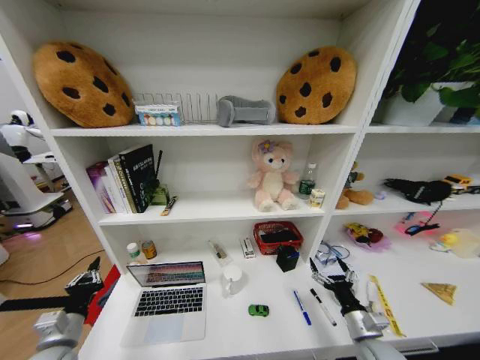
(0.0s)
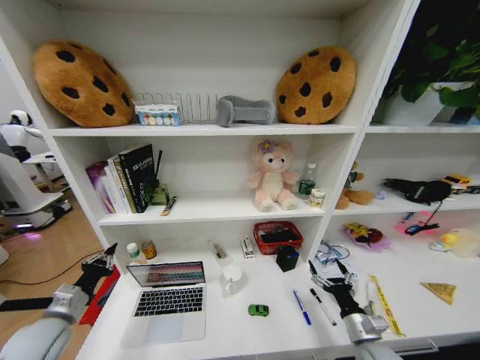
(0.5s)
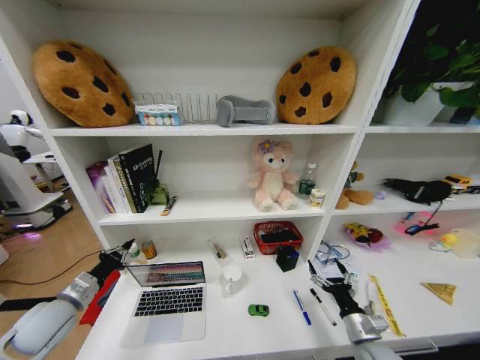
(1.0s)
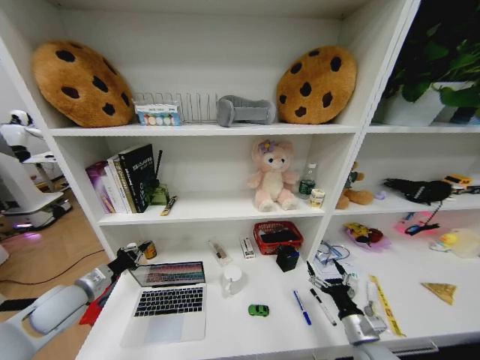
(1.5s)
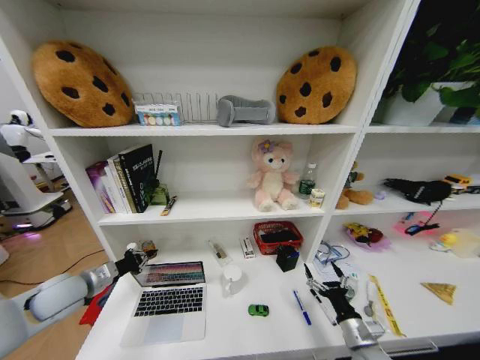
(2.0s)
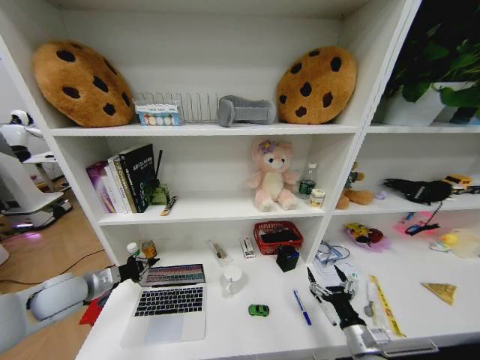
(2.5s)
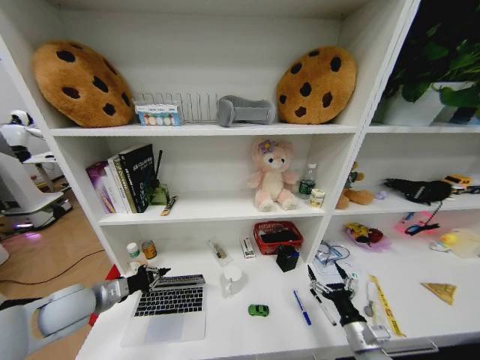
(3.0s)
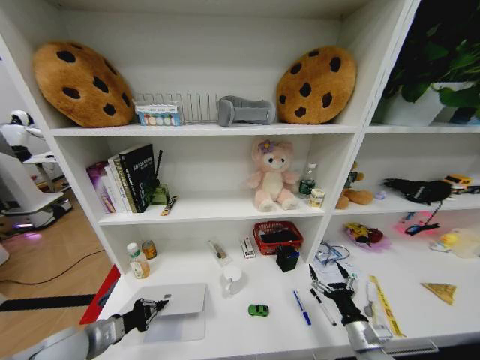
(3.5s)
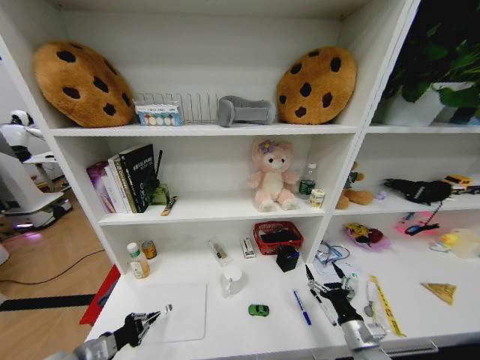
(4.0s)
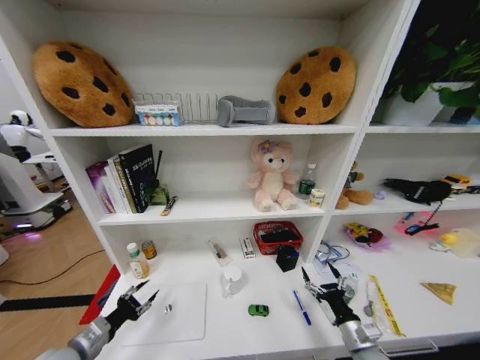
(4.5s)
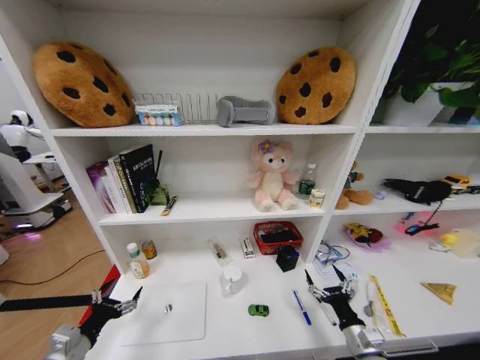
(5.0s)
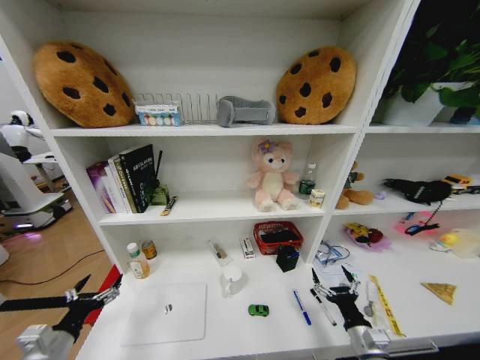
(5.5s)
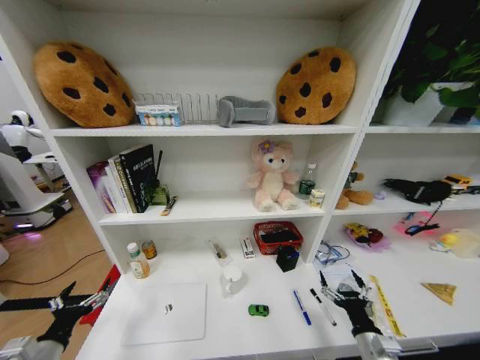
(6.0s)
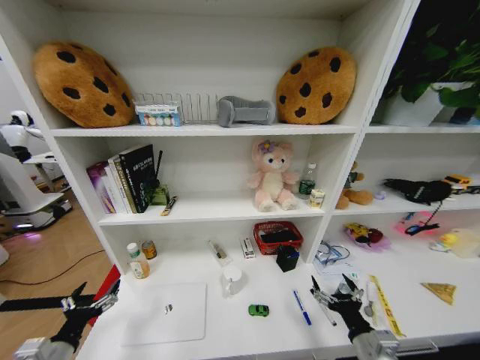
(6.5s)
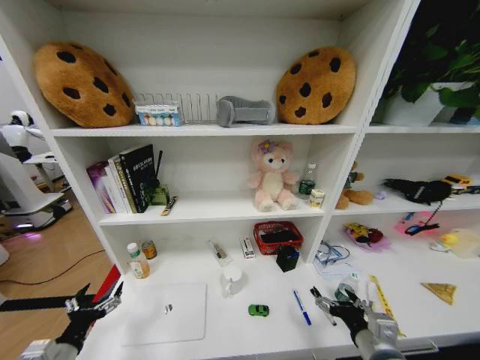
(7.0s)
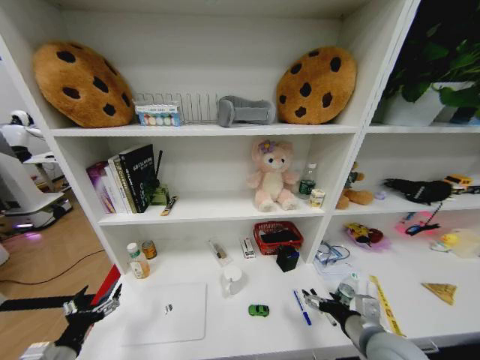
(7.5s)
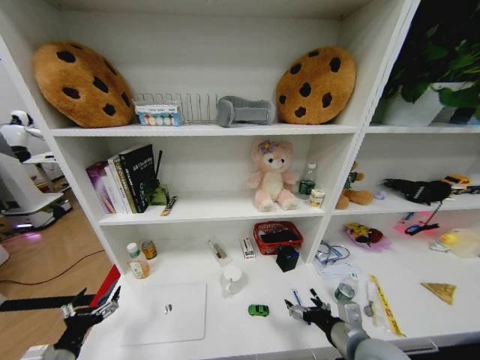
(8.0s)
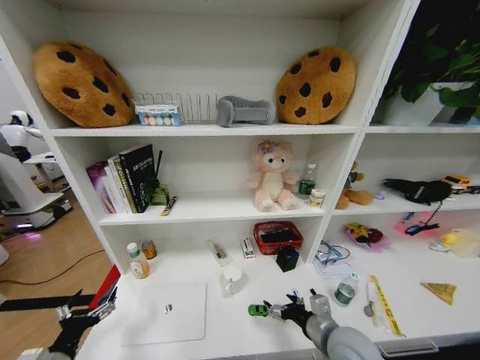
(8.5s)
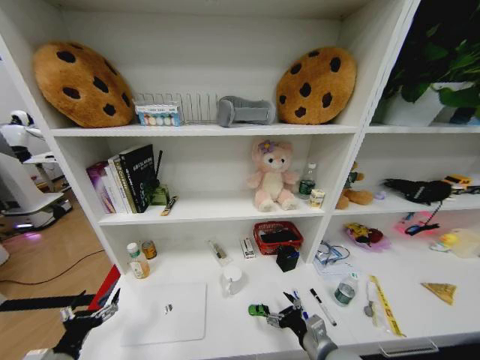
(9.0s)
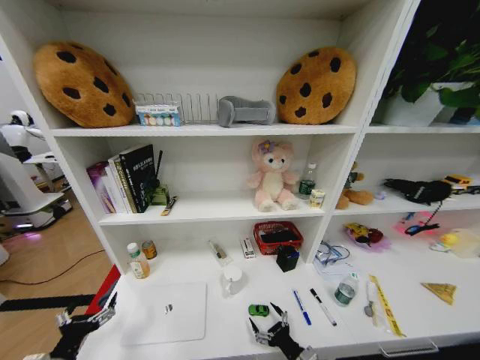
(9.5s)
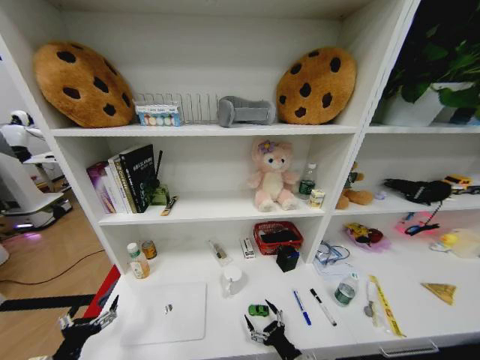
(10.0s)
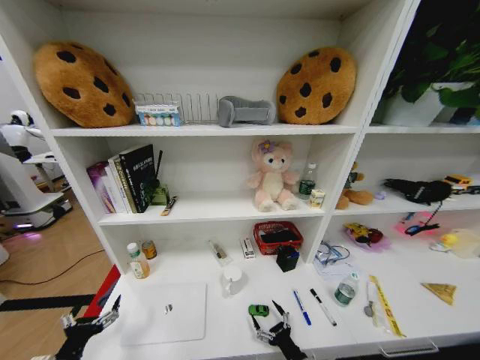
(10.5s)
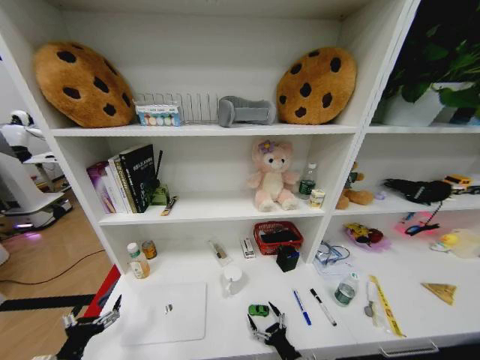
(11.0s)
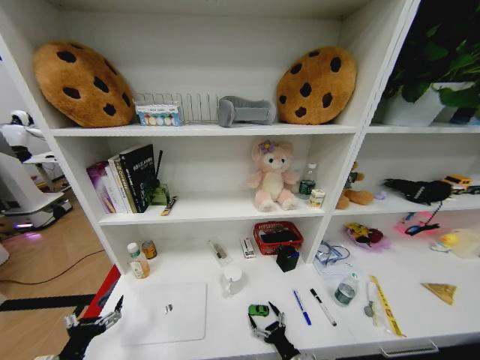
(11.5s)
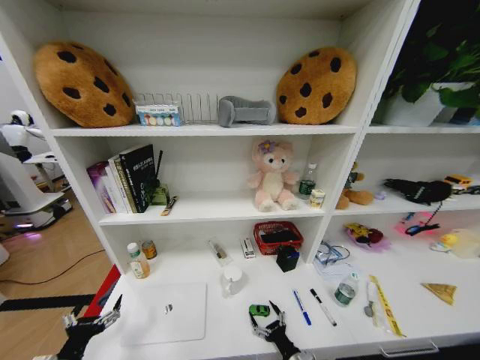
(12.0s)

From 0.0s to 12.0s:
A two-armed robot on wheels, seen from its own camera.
Task of the whole recording: Organize the objects on the table.
From 0.0s to 2.0s: The left gripper heads forward and upward, covering approximately 15 cm.
From 2.0s to 4.0s: The left gripper goes about 15 cm backward and downward.
From 4.0s to 6.0s: The left gripper shifts by about 5 cm, and opens up.
From 6.0s to 8.0s: The right gripper is displaced upward and to the left by approximately 15 cm.
From 8.0s to 10.0s: The right gripper moves downward, about 20 cm.
From 10.0s to 12.0s: The right gripper moves some 5 cm.

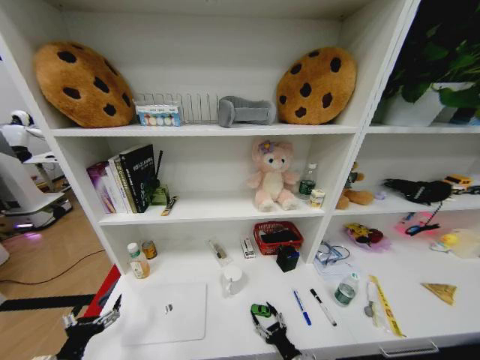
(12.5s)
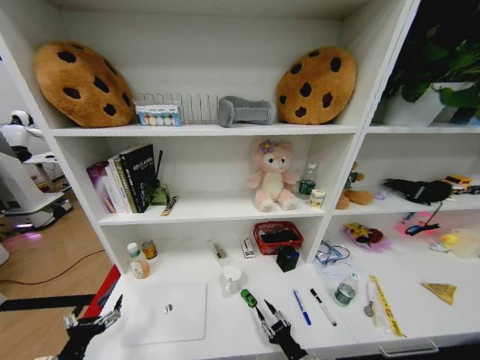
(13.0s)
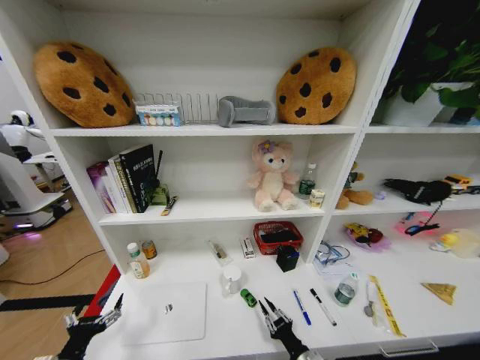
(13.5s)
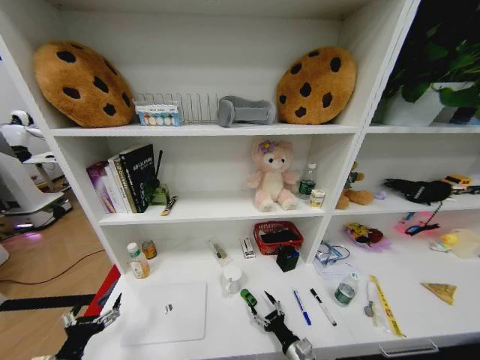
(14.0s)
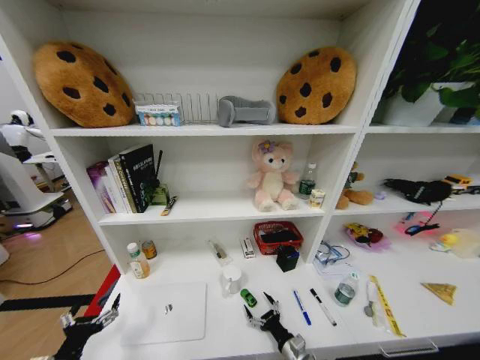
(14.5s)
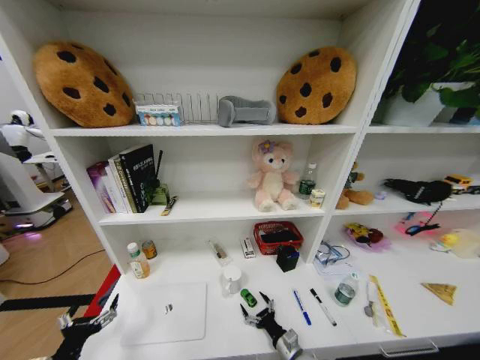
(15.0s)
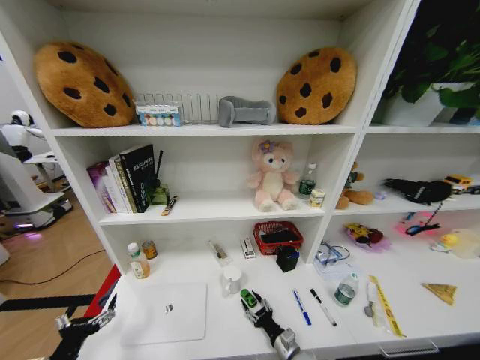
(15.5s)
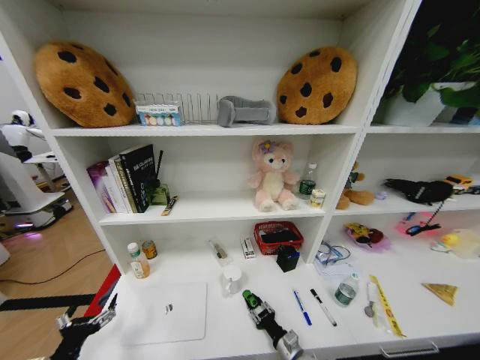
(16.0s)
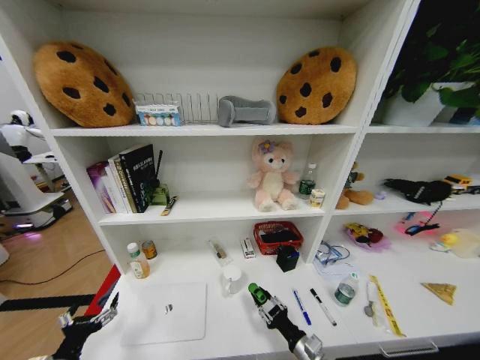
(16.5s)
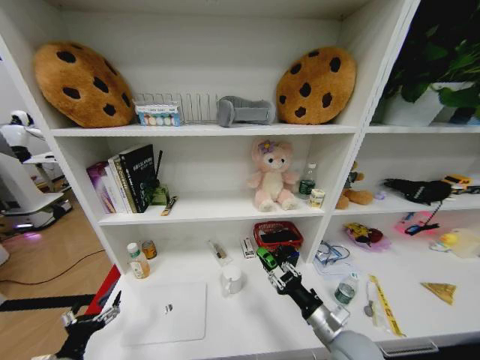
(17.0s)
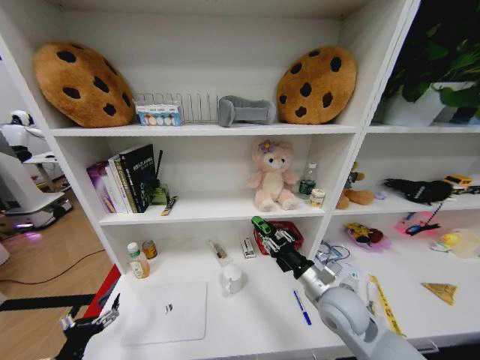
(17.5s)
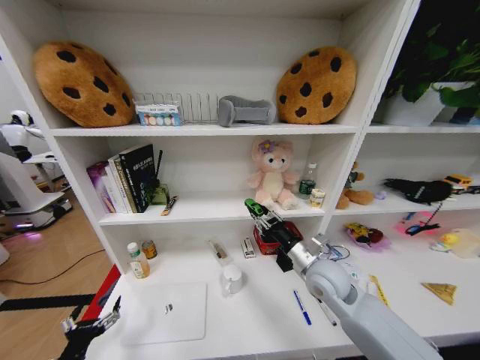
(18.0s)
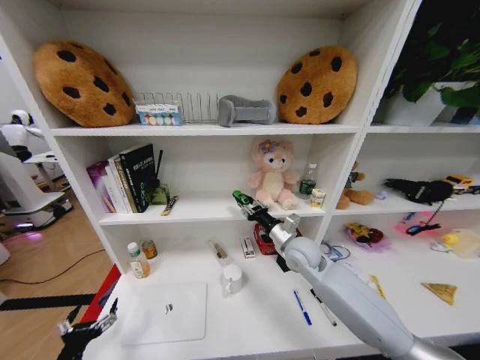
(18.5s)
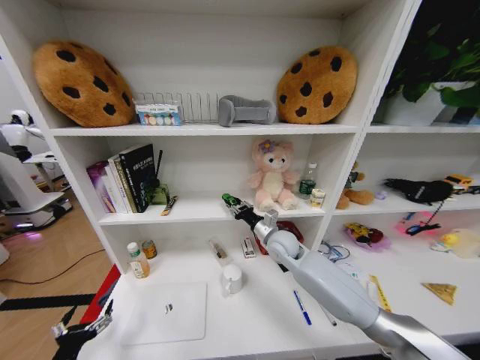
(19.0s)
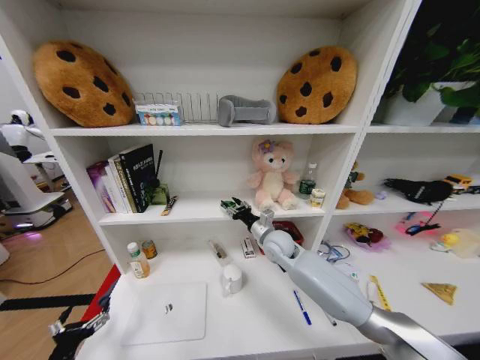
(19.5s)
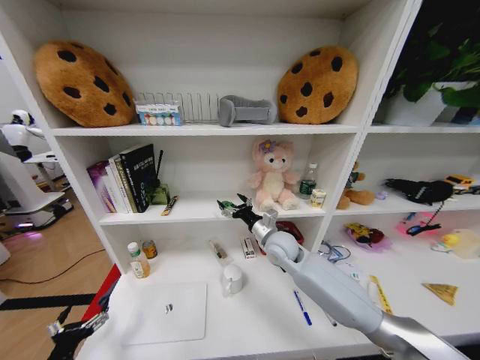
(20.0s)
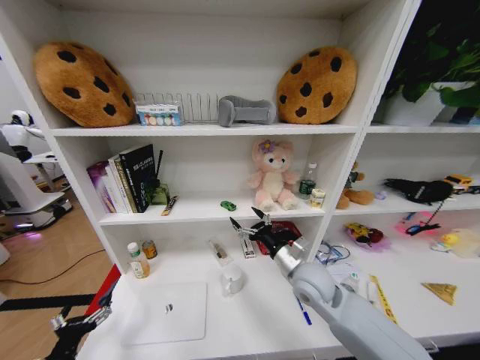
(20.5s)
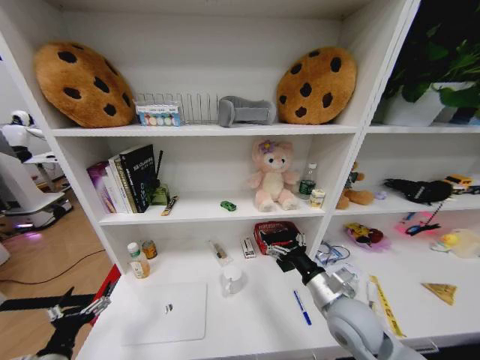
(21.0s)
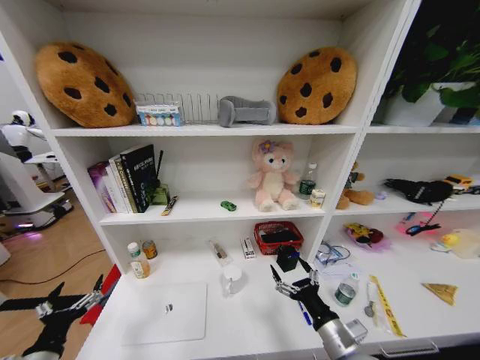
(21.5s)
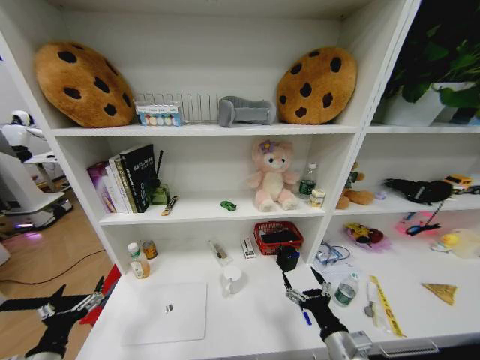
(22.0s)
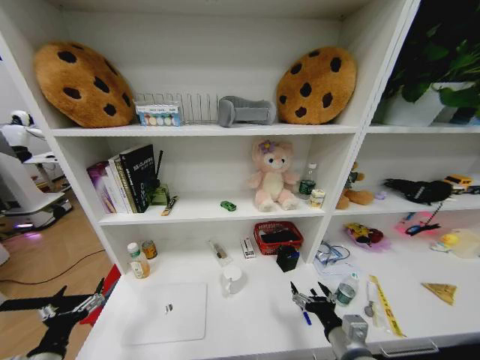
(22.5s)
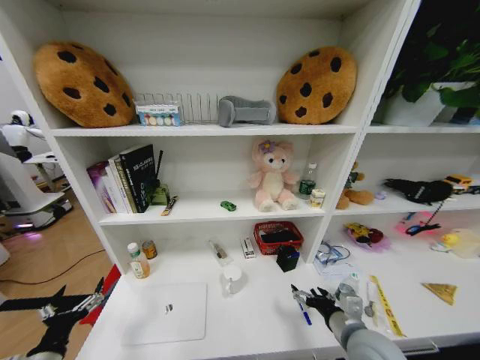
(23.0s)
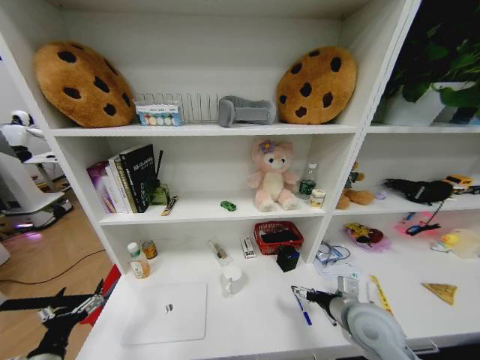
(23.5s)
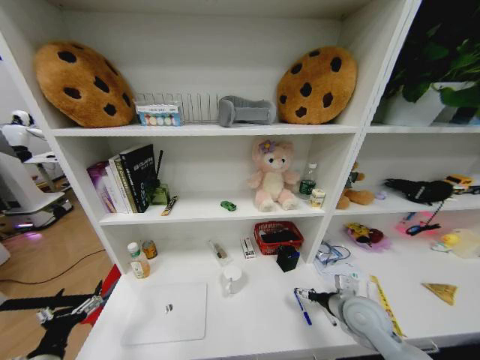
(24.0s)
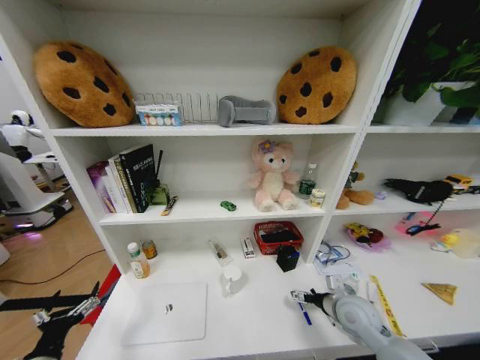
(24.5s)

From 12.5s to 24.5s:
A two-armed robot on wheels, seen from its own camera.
Task of the whole recording: Organize the objects on the table.
From 12.5s to 14.5s: The right gripper closes, then reopens.
From 14.5s to 16.5s: The right gripper goes some 10 cm upward, and closes.
From 16.5s to 18.5s: The right gripper goes roughly 30 cm forward and upward.
From 18.5s to 20.5s: The right gripper shifts roughly 5 cm backward, and opens its fingers.
From 20.5s to 22.5s: The right gripper moves backward, to the right and downward, approximately 20 cm.
From 22.5s to 24.5s: The right gripper is displaced forward and to the right by roughly 15 cm.

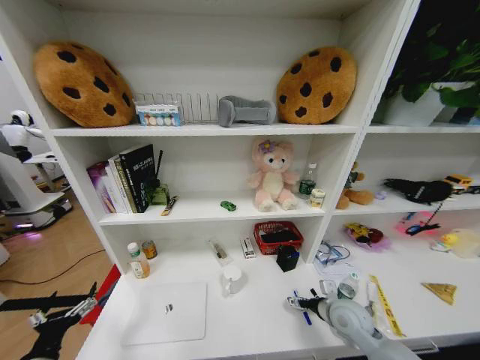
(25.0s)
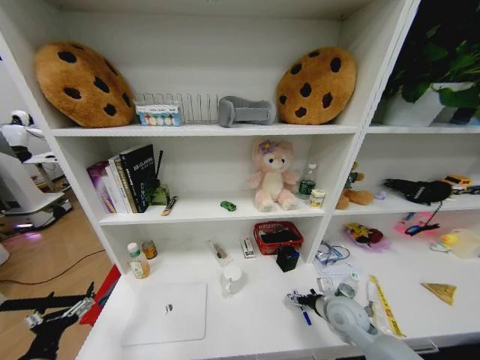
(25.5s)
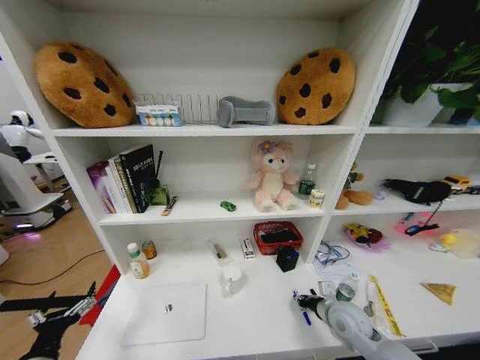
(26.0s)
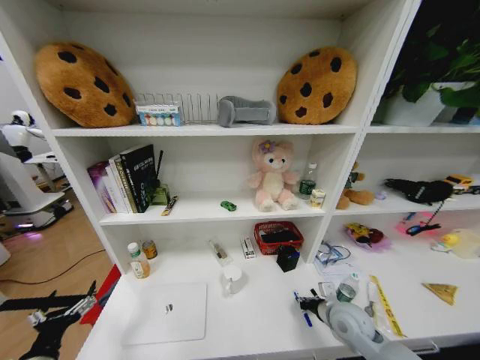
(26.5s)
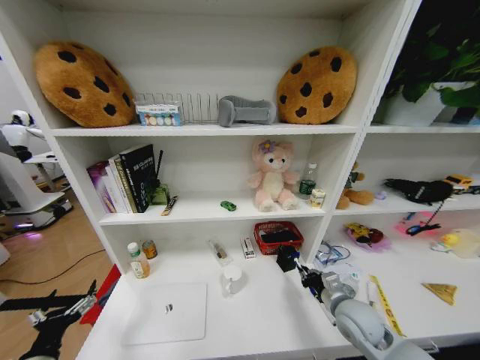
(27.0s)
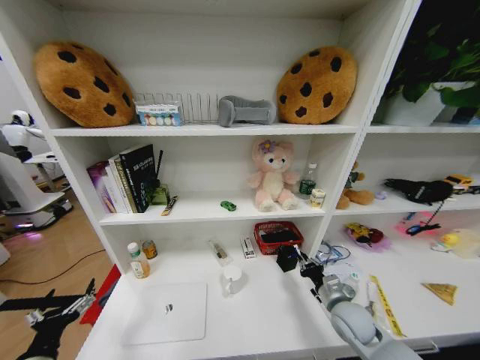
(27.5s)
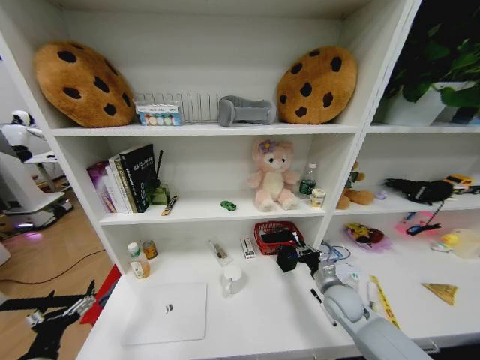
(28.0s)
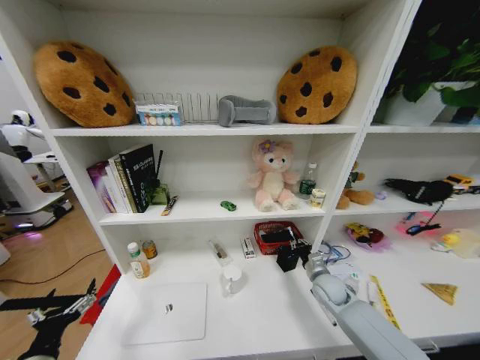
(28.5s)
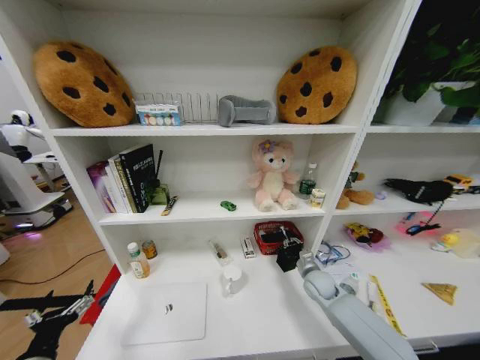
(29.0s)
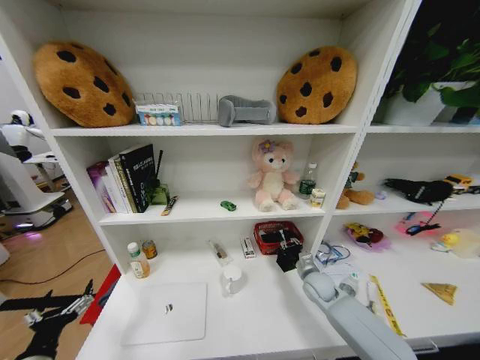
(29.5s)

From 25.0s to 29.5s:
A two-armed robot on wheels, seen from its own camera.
Task of the whole recording: Organize the objects on the table.
From 25.0s to 27.0s: The right gripper closes.
From 27.0s to 29.5s: The right gripper goes roughly 15 cm forward and downward.
